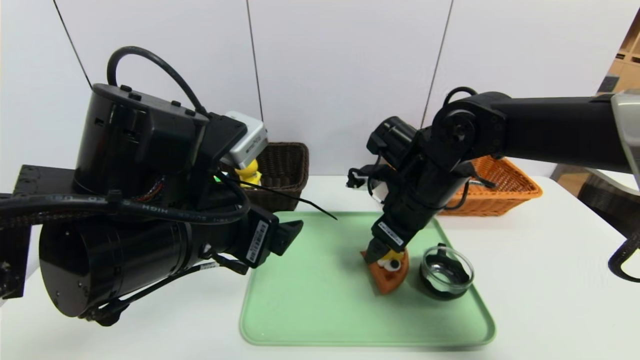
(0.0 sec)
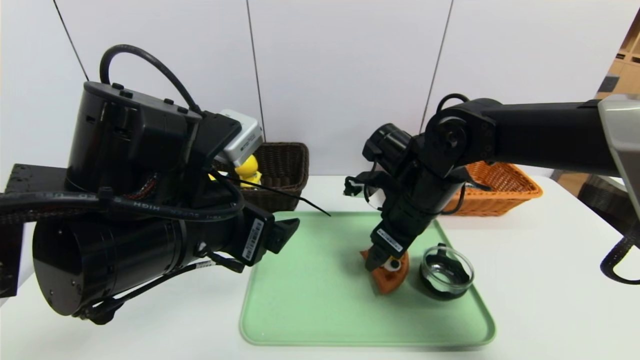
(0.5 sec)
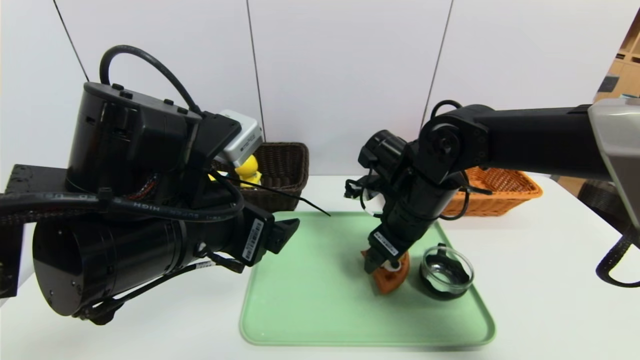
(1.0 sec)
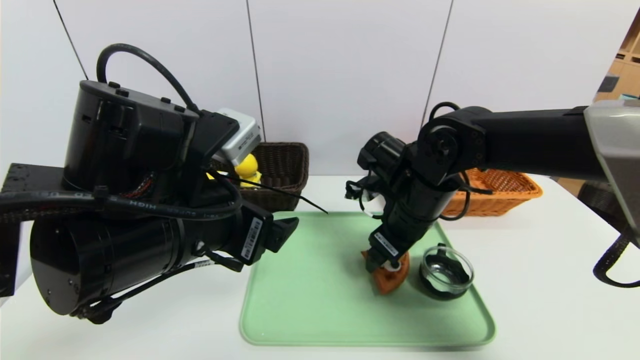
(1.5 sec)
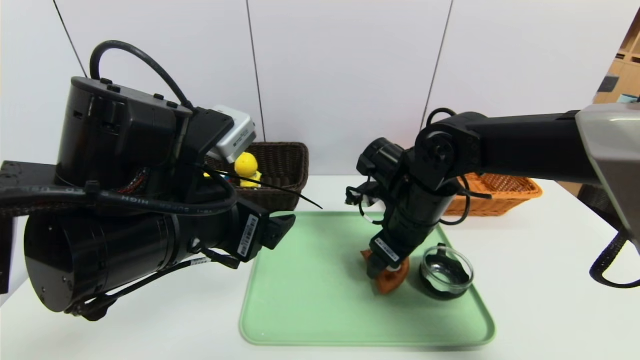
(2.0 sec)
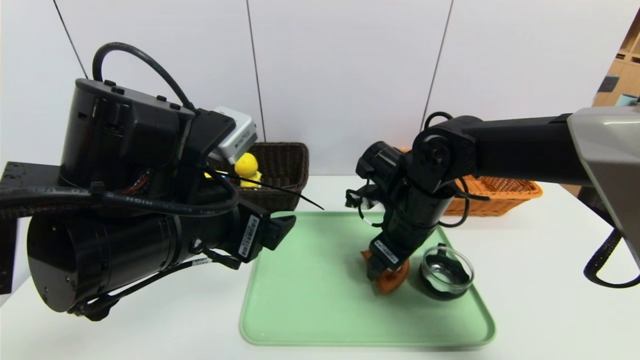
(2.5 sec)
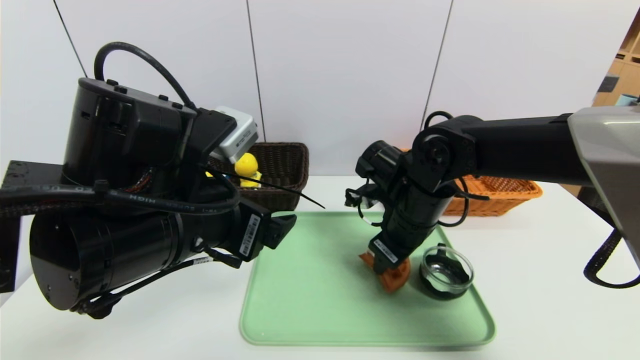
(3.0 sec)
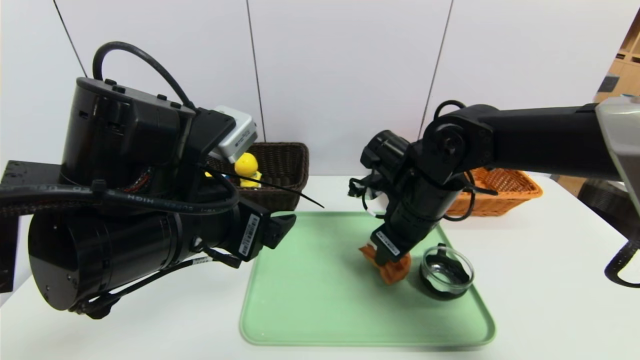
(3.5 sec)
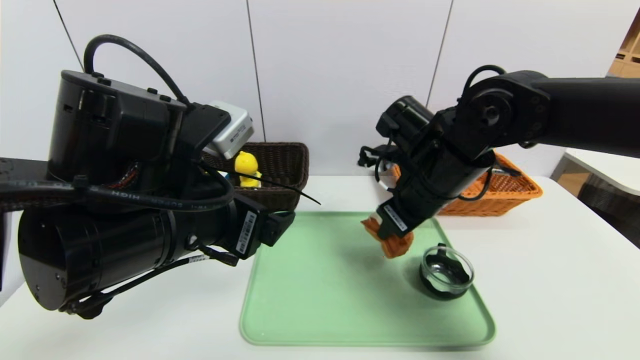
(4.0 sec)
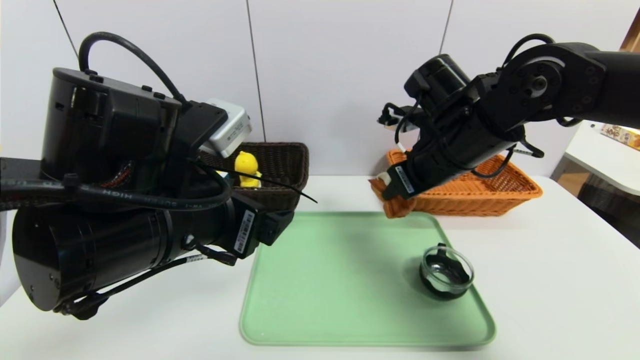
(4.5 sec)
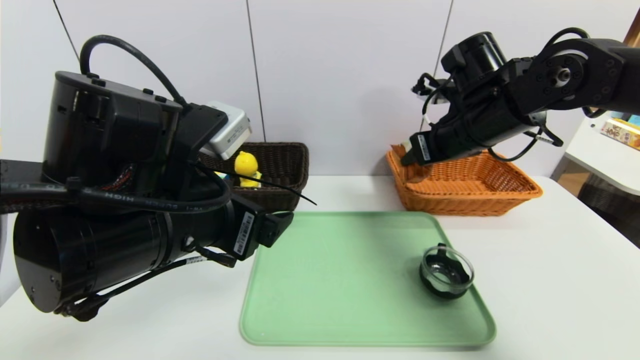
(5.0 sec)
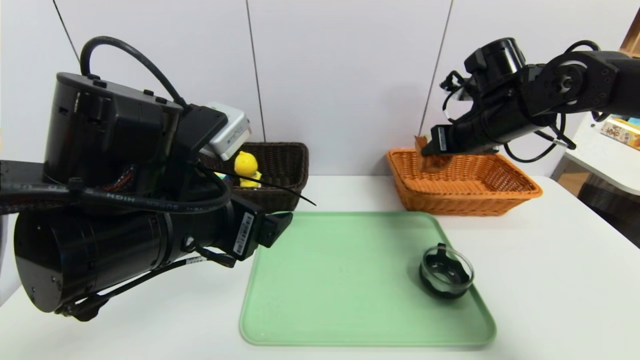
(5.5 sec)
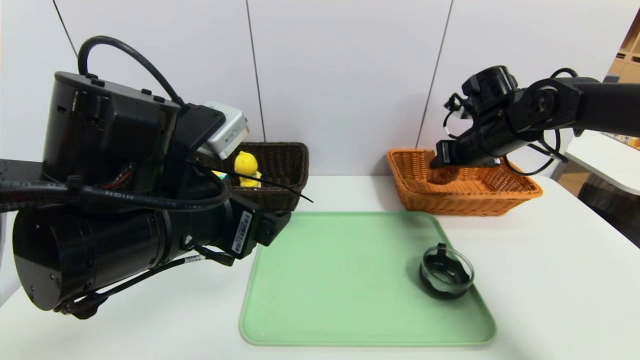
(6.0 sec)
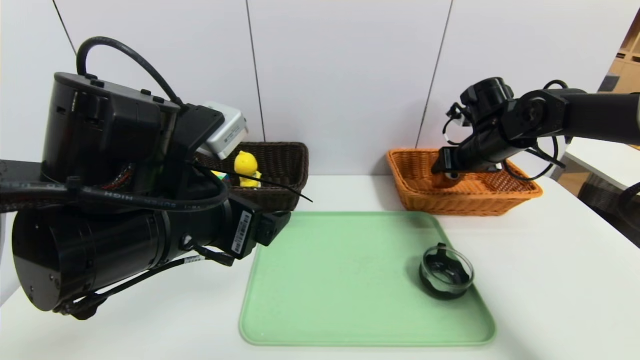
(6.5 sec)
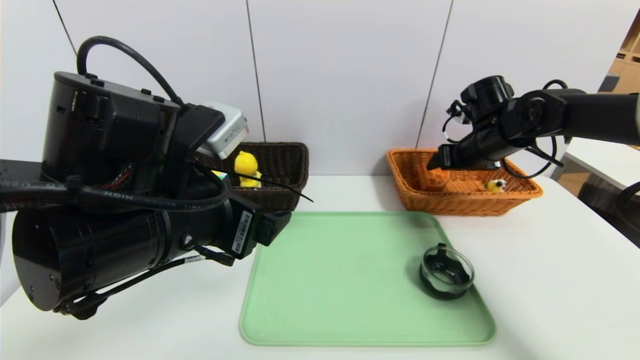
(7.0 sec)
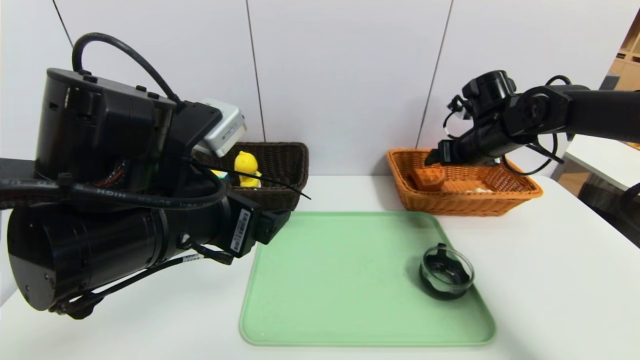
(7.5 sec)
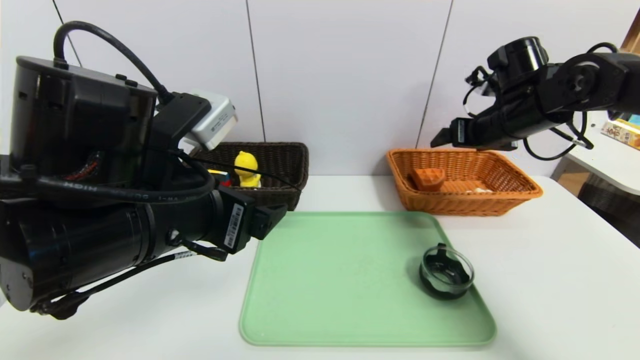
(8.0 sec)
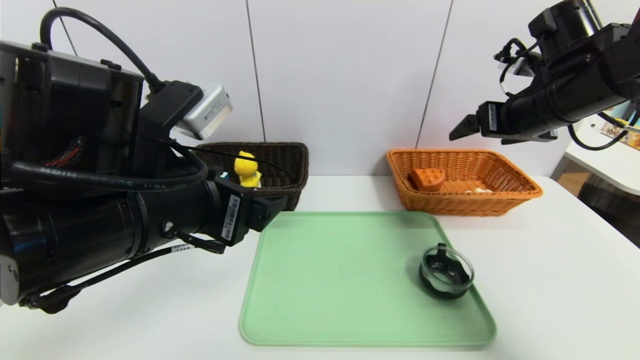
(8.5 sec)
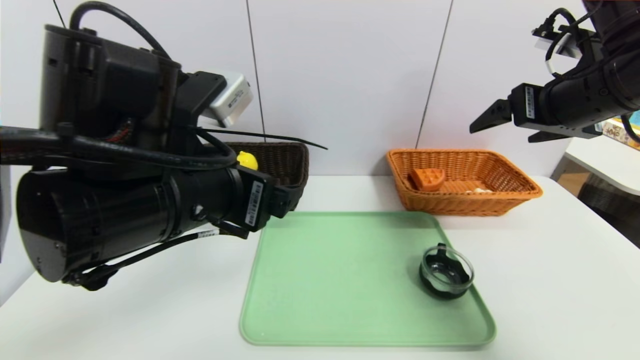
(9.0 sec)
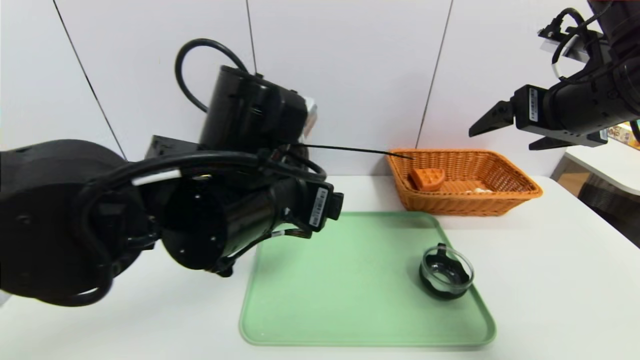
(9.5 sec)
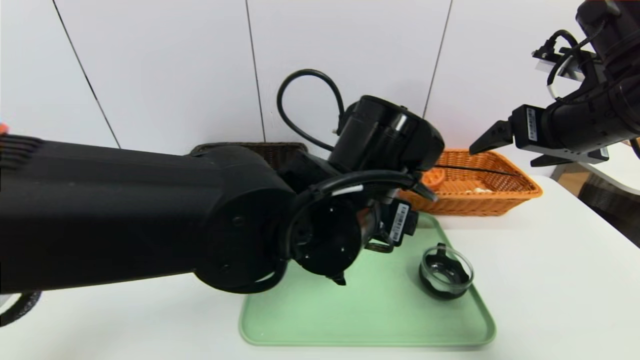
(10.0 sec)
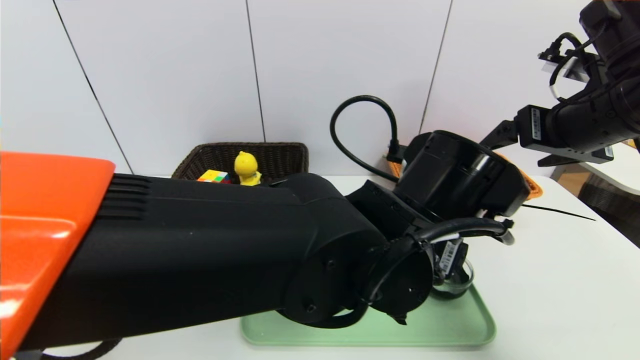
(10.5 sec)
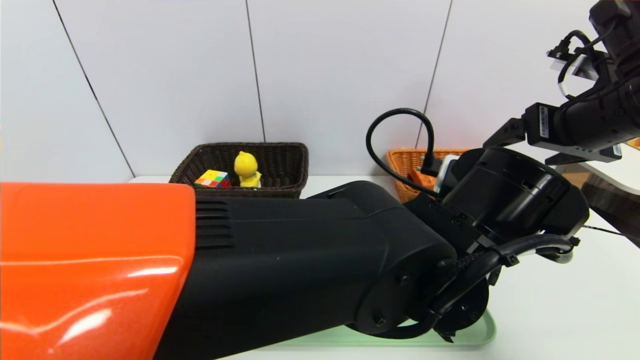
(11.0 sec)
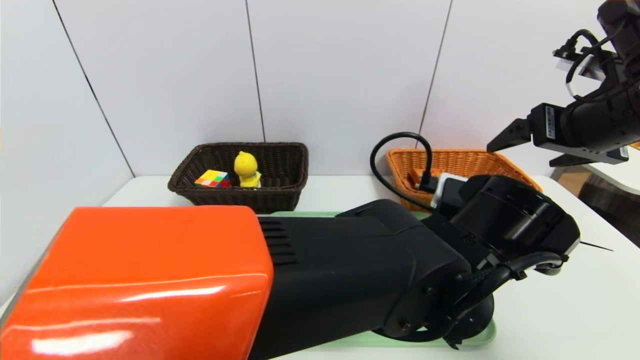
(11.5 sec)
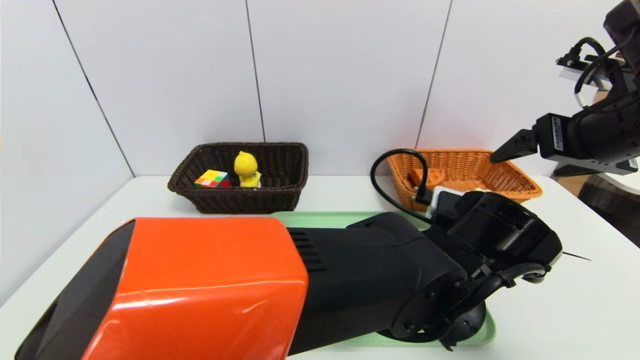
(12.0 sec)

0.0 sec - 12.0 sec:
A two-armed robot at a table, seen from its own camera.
Task of the whole recording: place the food in the right basket with the right gripper, and place the non food items in the left basket with the left gripper.
Step, 0.0 sec - 7.0 sec: Grasp the waffle and put it in the right basket.
0.0 sec - 2.0 sec: The grippers move only a little.
2.0 sec - 4.0 sec: The right gripper moves upward, some 5 cm, and closes.
4.0 sec - 6.0 sec: The right gripper shifts approximately 15 cm to the right and forward.
6.0 sec - 8.0 sec: The right gripper opens.
8.0 sec - 10.0 sec: The left gripper heads to the right, covering approximately 15 cm, while the right gripper moves backward and upward, about 15 cm.
10.0 sec - 12.0 sec: The left gripper goes about 10 cm to the right and downward.

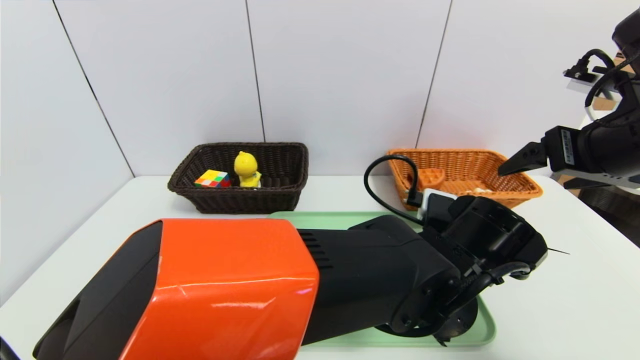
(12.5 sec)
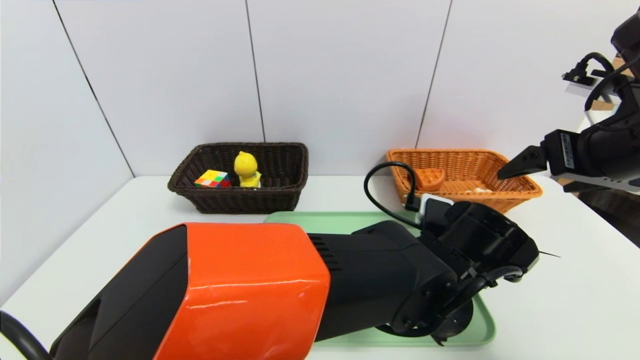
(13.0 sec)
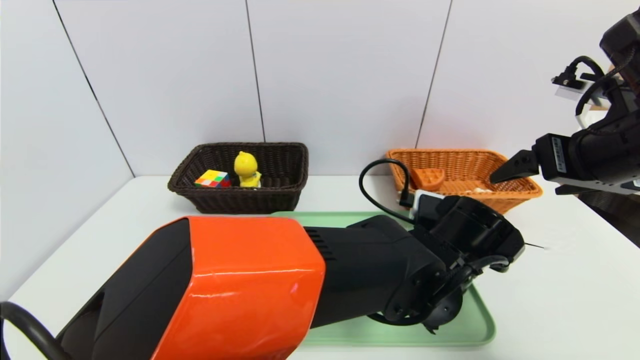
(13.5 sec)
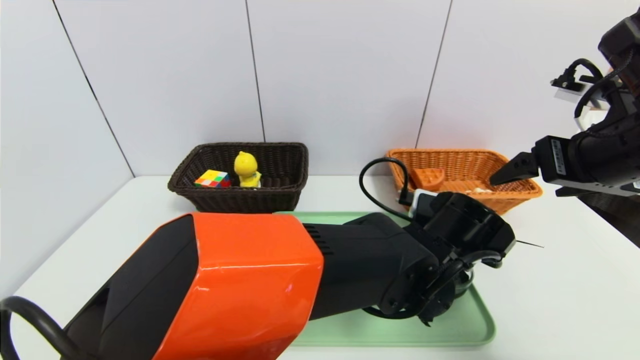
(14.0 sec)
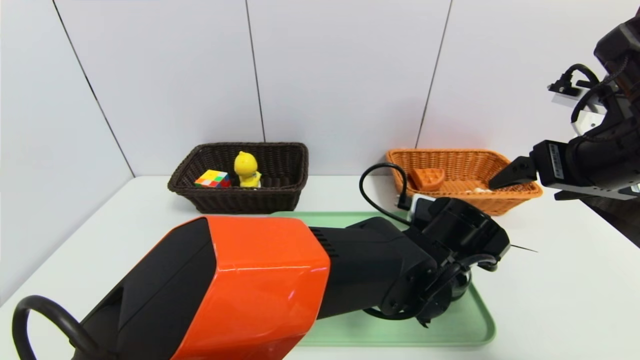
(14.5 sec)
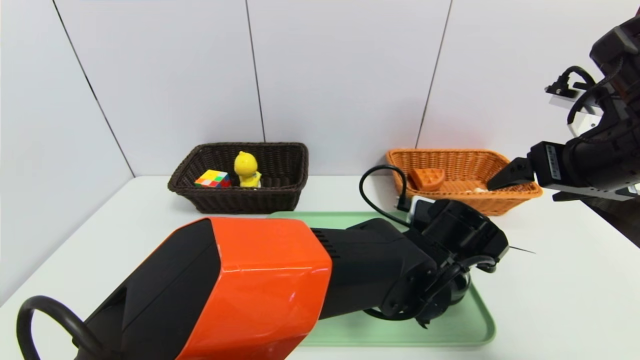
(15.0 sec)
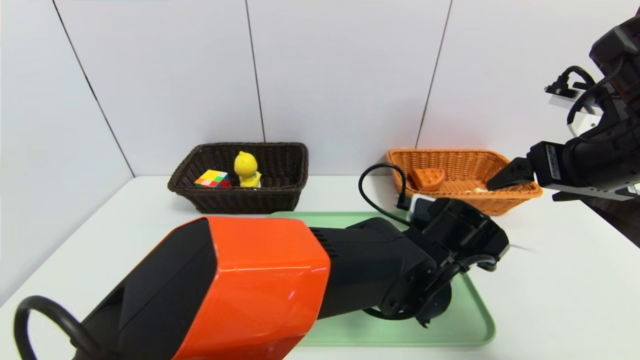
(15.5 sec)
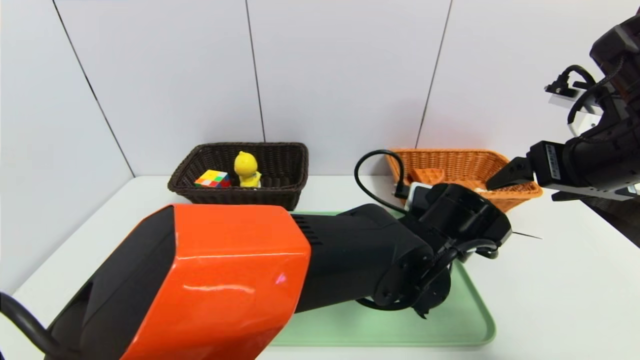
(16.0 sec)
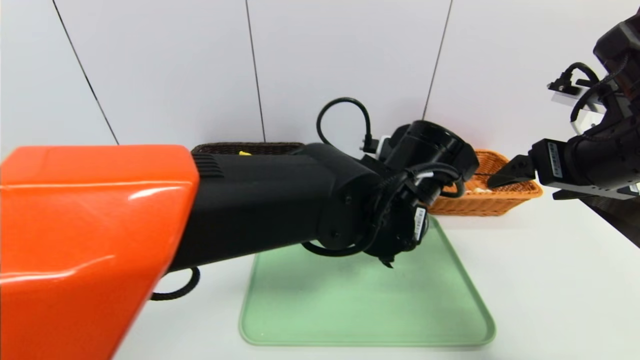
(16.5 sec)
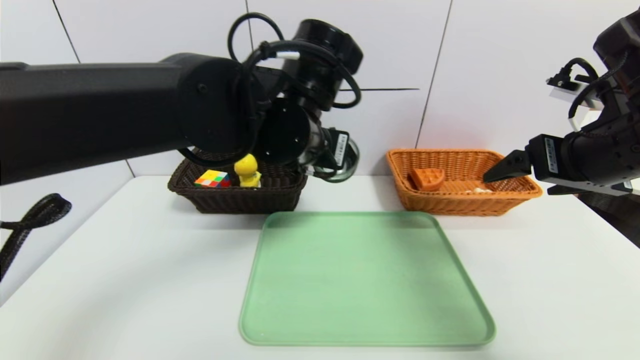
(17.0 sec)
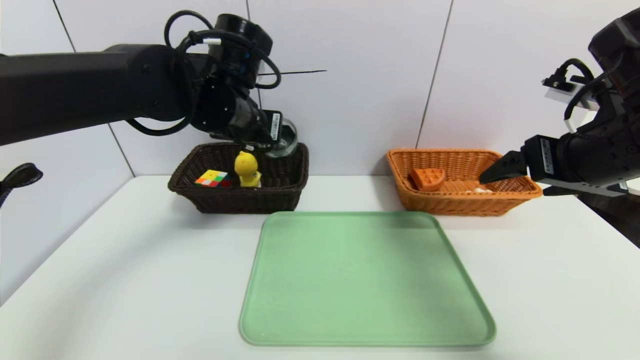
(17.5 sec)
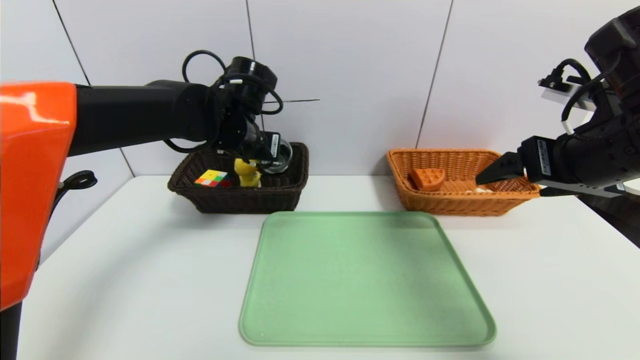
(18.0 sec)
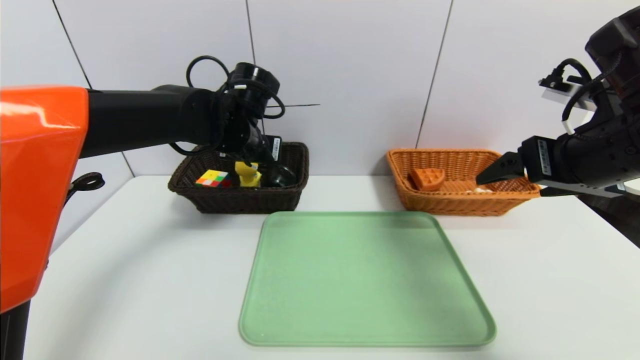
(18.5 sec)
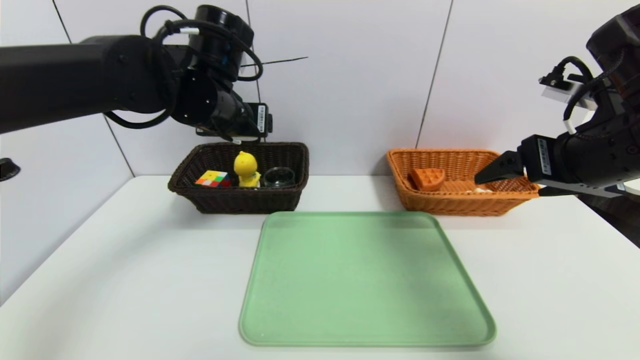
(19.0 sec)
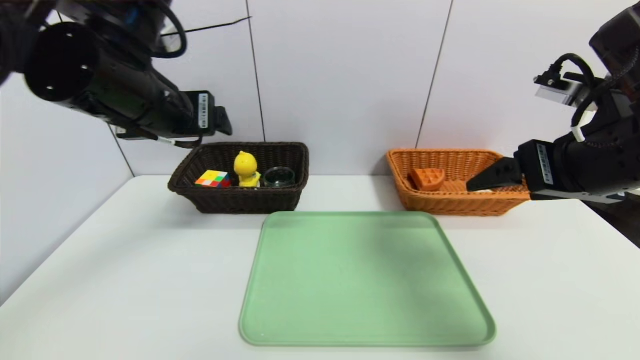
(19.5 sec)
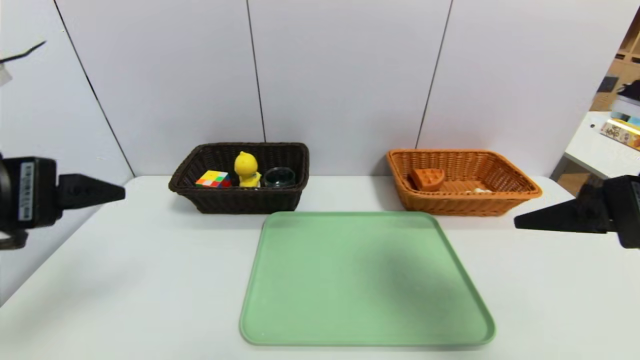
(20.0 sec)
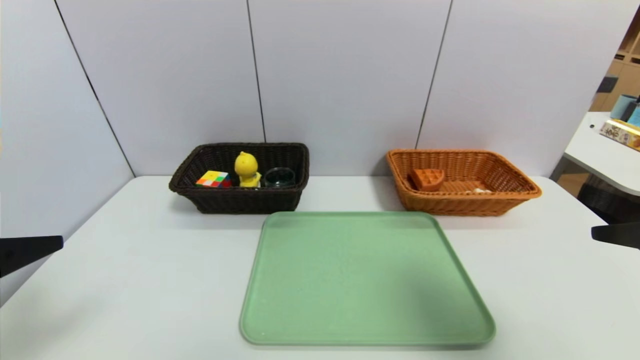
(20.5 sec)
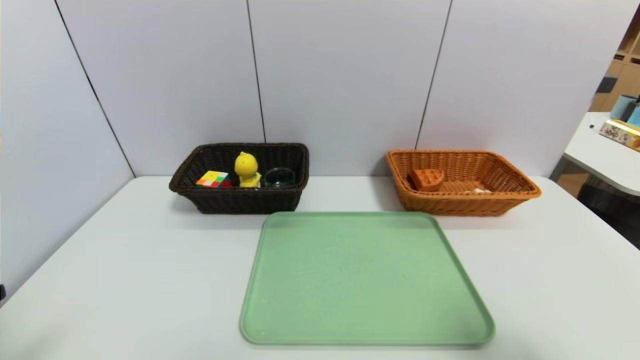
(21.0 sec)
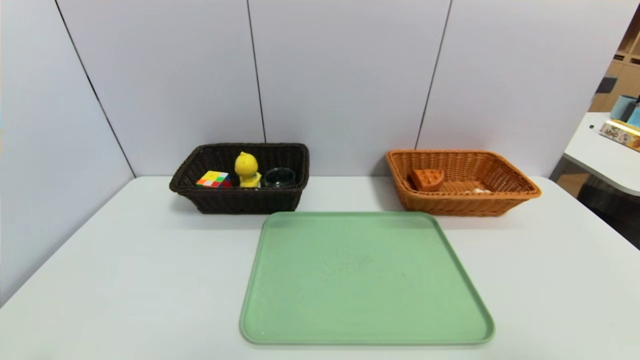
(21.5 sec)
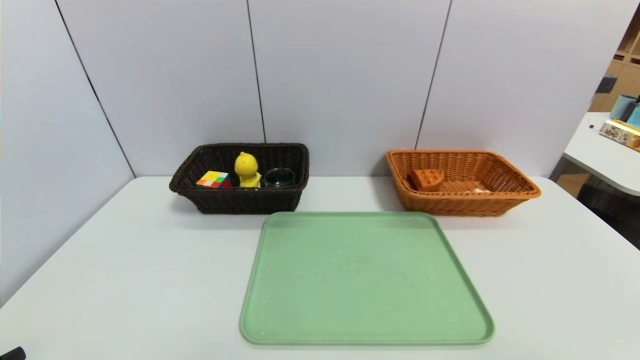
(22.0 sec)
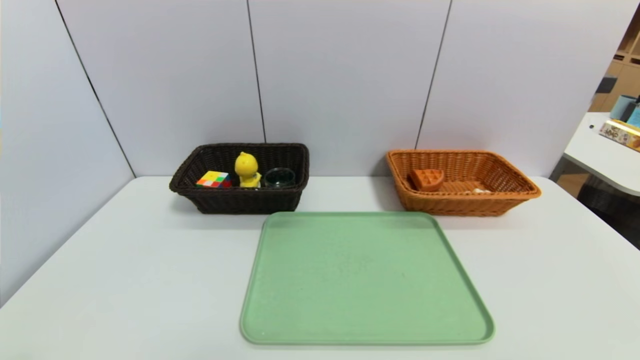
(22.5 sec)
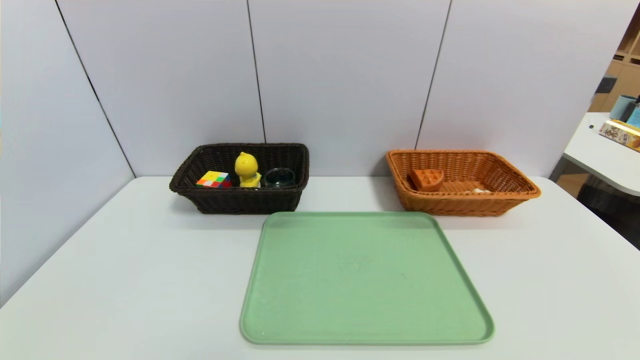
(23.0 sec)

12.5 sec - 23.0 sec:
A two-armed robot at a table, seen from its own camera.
Task of the whole recording: place the food in the right basket with the right gripper, and place the non food items in the left basket with the left gripper.
Step, 12.5 sec - 18.5 sec: Grasp the black glass cup and put it in the left basket.
12.5 sec - 14.5 sec: The grippers make only small movements.
14.5 sec - 16.5 sec: The left gripper heads upward and to the left, covering some 10 cm, and closes its fingers.
16.5 sec - 19.0 sec: The left gripper moves to the left, forward and upward, roughly 25 cm, and opens its fingers.
19.0 sec - 21.0 sec: The right gripper moves backward, approximately 20 cm. Meanwhile the left gripper travels backward and to the left by some 35 cm.
21.0 sec - 23.0 sec: The right gripper shifts roughly 10 cm backward.
